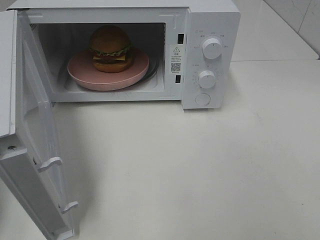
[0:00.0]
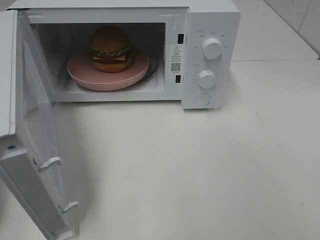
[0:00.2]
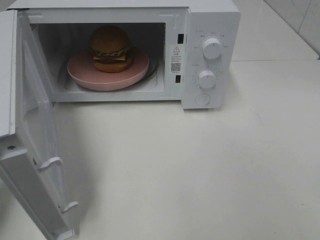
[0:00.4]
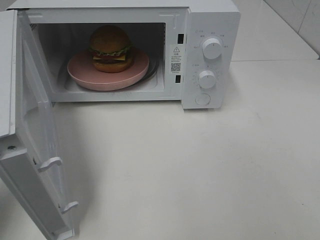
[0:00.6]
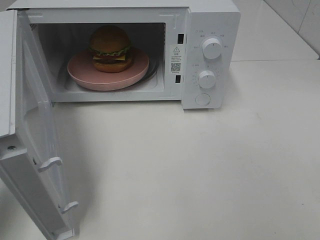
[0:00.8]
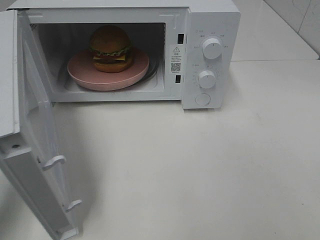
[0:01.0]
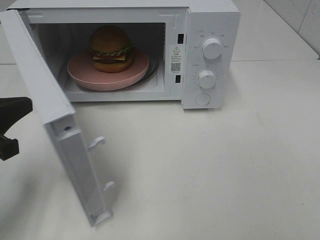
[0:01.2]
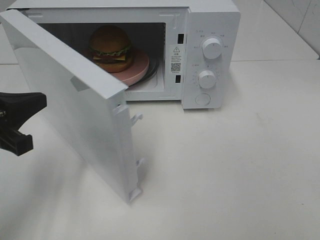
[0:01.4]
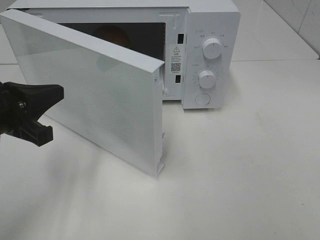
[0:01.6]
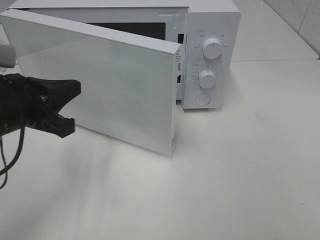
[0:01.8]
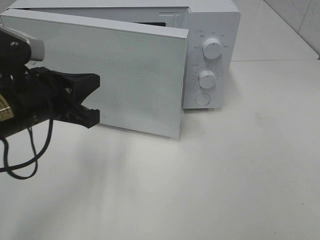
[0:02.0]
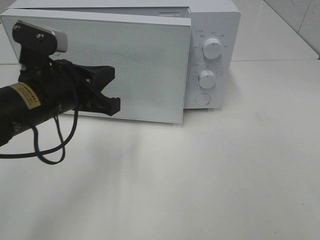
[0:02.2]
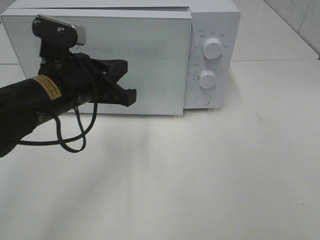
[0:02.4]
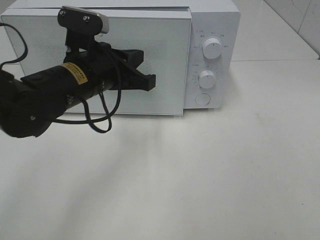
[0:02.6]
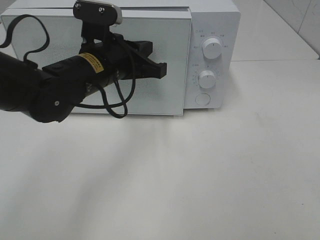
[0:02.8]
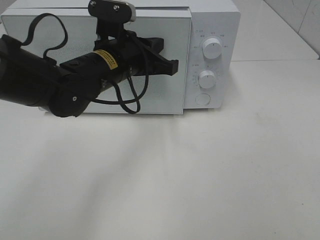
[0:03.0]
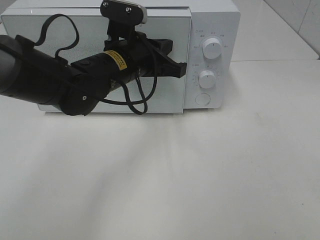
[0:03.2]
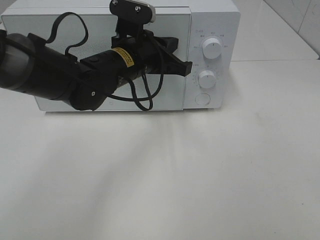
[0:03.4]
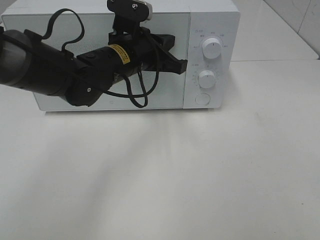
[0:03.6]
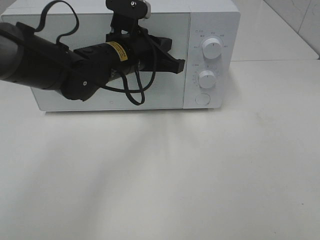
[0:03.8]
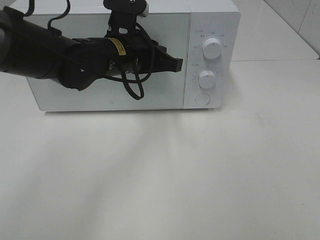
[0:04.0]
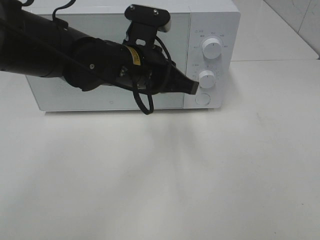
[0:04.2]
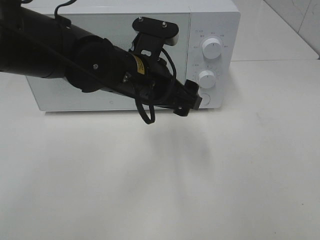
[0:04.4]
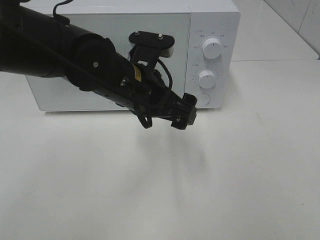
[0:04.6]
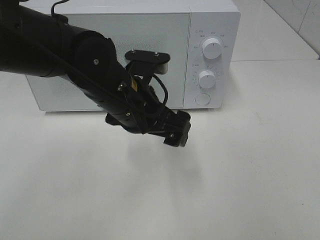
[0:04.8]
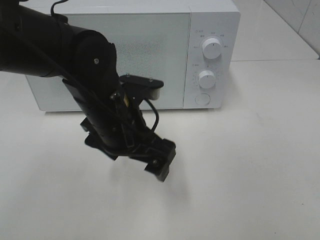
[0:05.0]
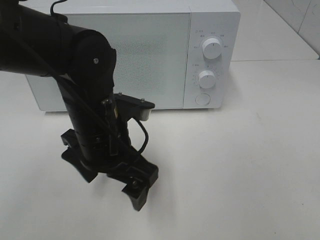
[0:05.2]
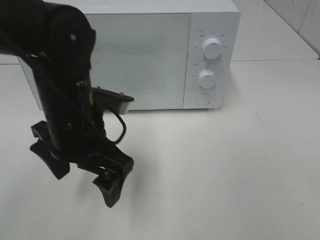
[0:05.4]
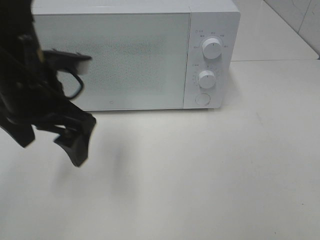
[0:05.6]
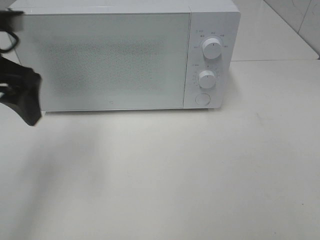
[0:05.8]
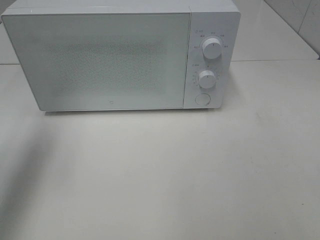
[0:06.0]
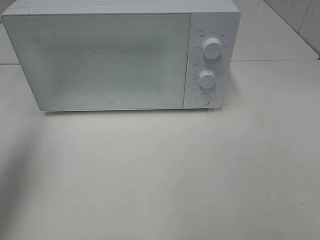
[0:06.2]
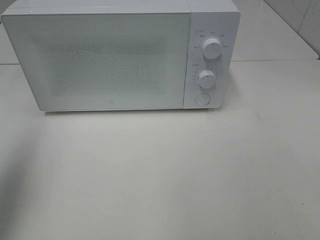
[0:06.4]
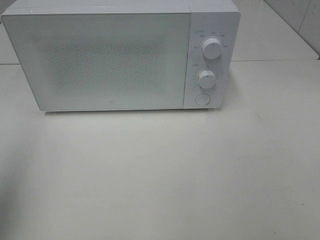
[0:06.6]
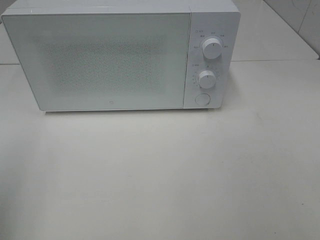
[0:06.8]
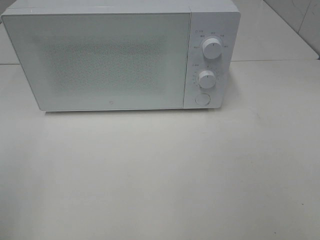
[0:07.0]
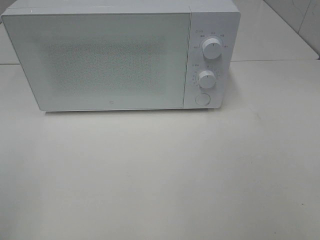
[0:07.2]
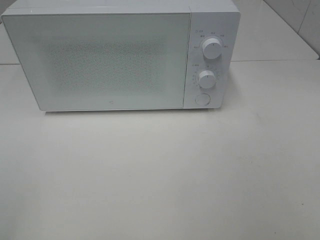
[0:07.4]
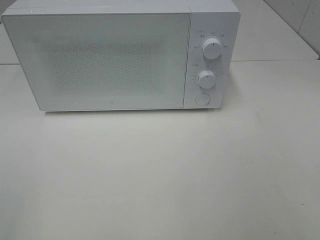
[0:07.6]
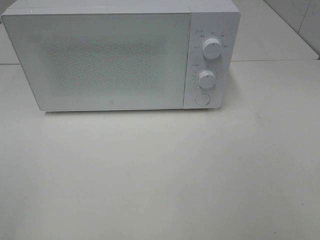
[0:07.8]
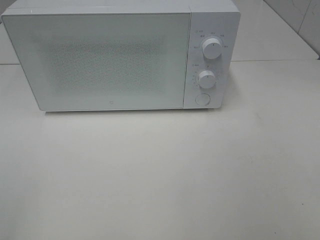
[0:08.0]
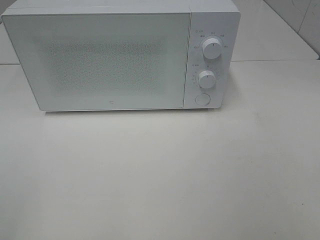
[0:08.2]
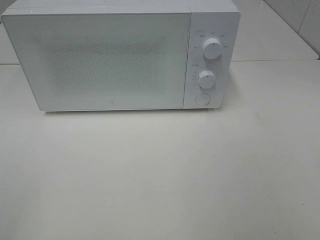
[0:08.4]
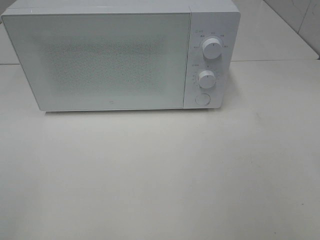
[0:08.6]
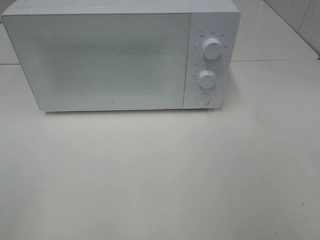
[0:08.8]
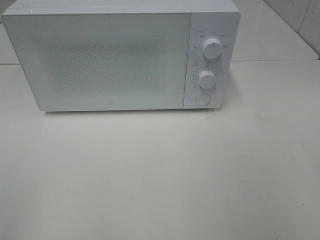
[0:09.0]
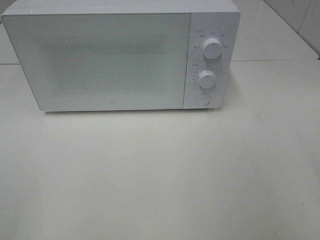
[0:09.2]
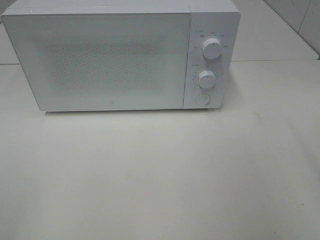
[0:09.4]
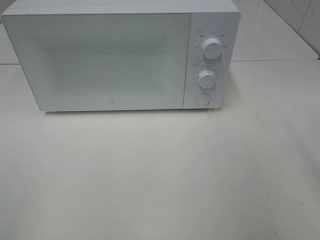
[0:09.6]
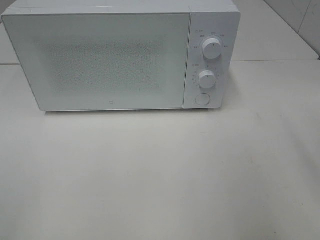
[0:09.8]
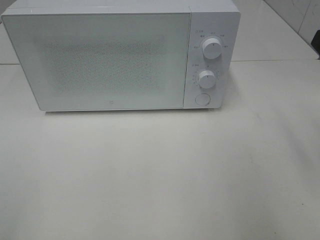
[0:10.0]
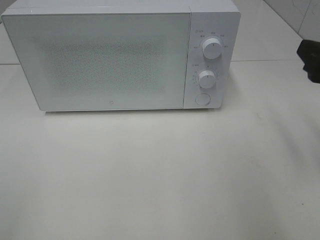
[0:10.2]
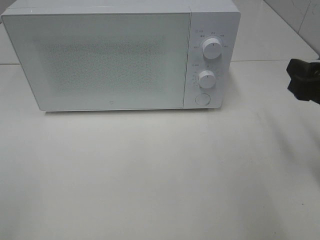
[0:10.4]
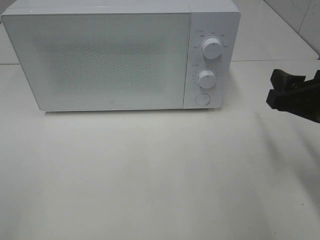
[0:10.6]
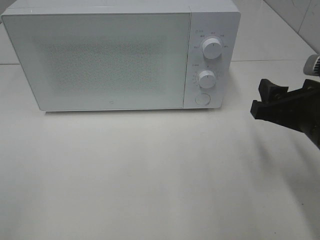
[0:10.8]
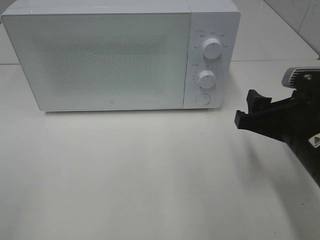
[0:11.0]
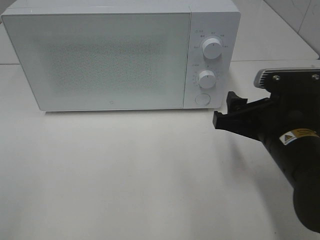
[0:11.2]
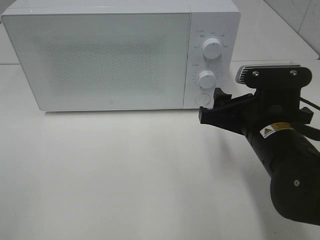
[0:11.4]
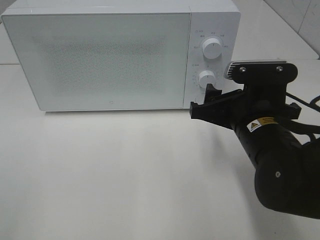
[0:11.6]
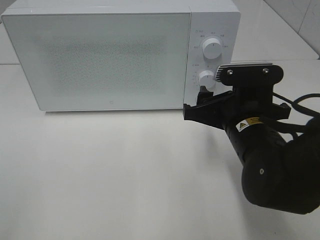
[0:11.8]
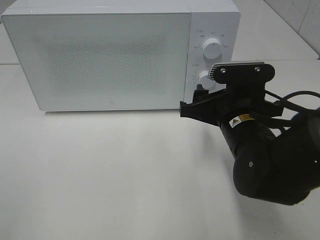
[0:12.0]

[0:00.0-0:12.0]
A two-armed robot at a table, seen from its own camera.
Task of the whole recording: Heat the burger.
Step, 0:00.0 to 0:04.0: Left hand: close the microwave door.
0:00.0 to 0:01.6: The left gripper is displaced to the right and forward by approximately 15 cm.
0:01.6 to 0:03.0: The left gripper moves to the right and forward, some 20 cm.
0:03.0 to 0:04.4: The left gripper changes place by roughly 5 cm, and opens its fingers.
0:04.4 to 0:06.0: The left gripper is displaced to the left and upward by approximately 30 cm.
0:06.0 to 0:07.6: The left gripper is displaced backward by approximately 25 cm.
0:09.0 to 0:10.4: The right gripper heads forward and downward, covering some 15 cm.
0:10.4 to 0:12.0: The right gripper moves to the left and downward, approximately 15 cm.

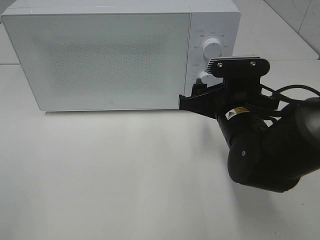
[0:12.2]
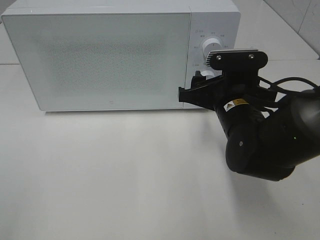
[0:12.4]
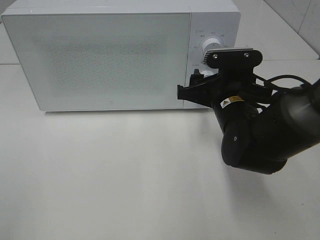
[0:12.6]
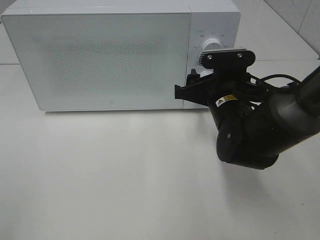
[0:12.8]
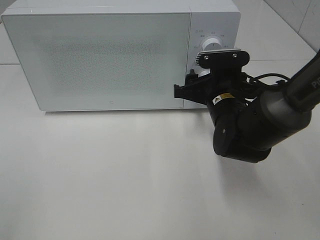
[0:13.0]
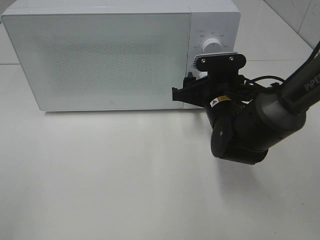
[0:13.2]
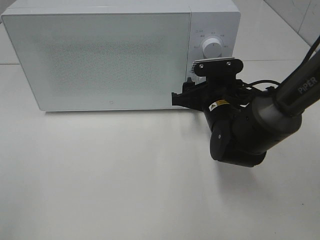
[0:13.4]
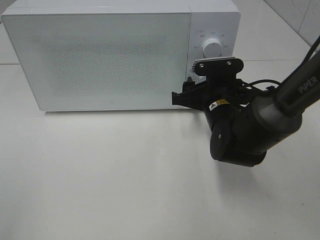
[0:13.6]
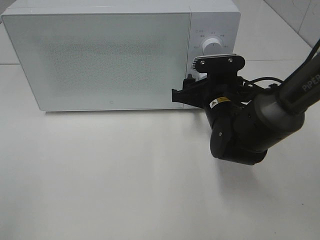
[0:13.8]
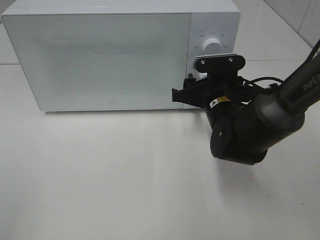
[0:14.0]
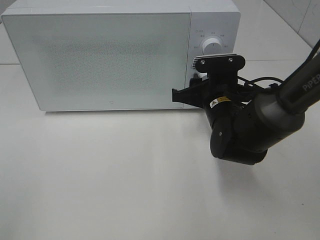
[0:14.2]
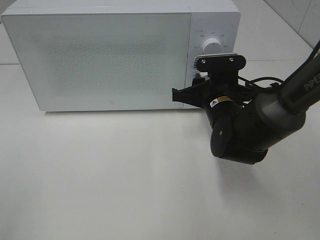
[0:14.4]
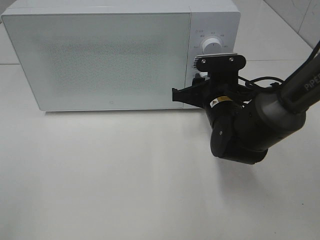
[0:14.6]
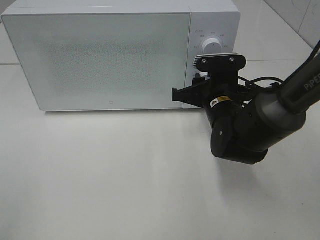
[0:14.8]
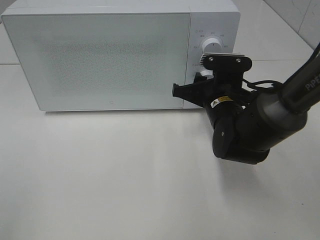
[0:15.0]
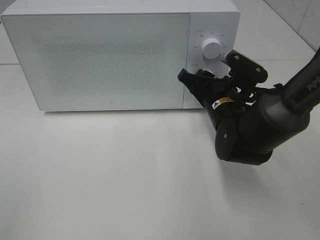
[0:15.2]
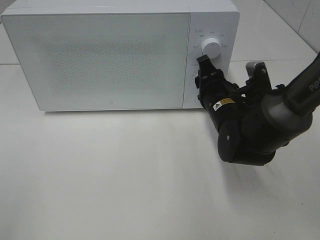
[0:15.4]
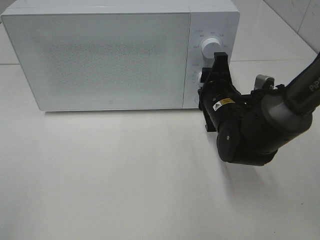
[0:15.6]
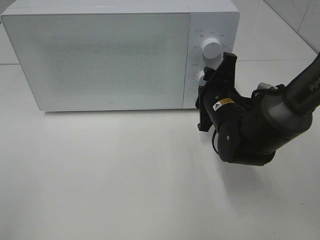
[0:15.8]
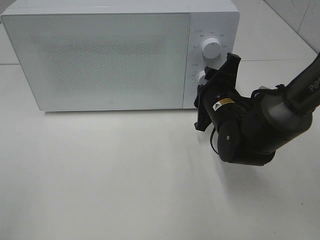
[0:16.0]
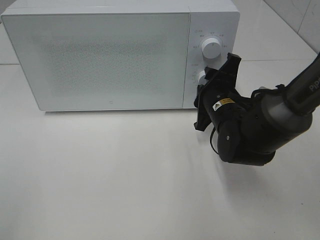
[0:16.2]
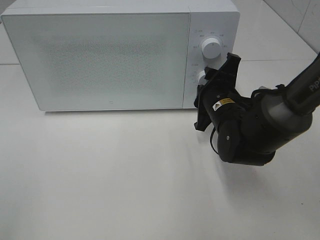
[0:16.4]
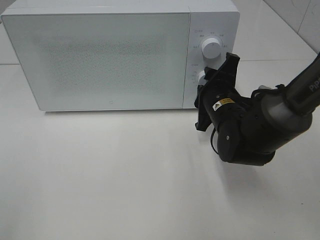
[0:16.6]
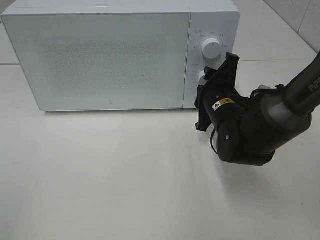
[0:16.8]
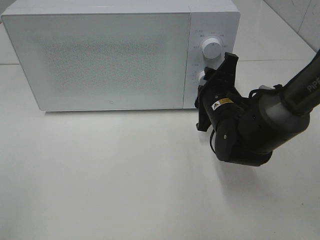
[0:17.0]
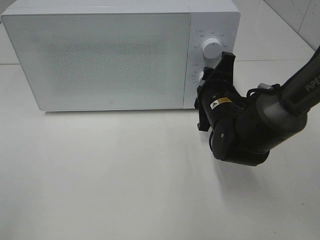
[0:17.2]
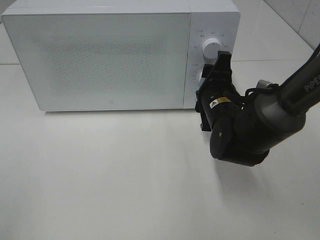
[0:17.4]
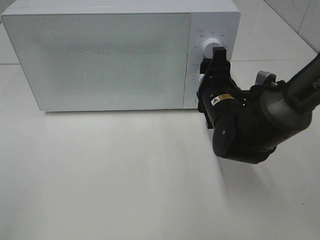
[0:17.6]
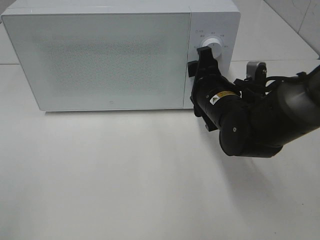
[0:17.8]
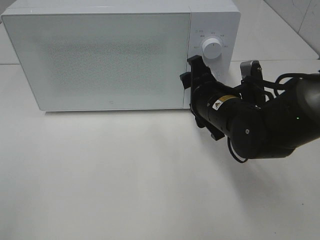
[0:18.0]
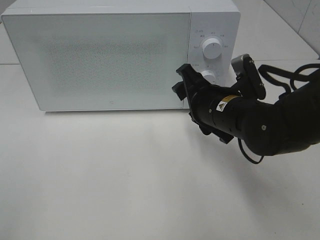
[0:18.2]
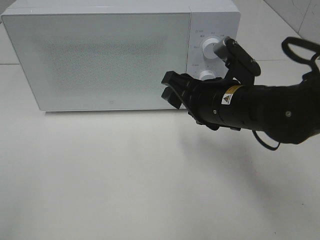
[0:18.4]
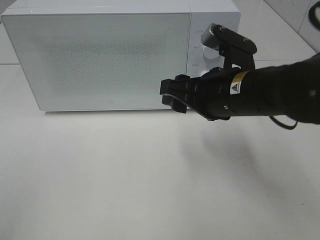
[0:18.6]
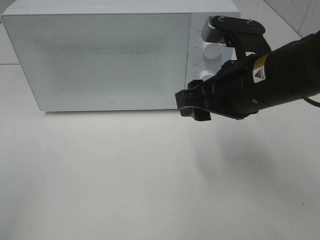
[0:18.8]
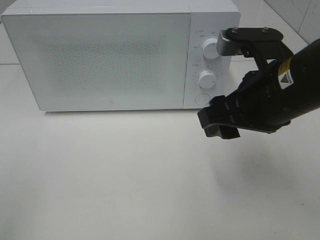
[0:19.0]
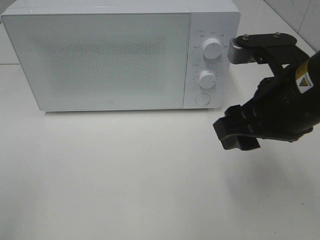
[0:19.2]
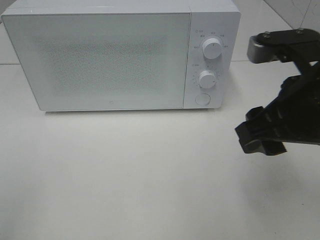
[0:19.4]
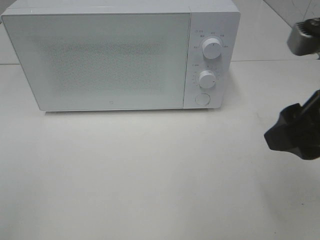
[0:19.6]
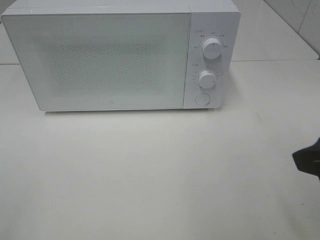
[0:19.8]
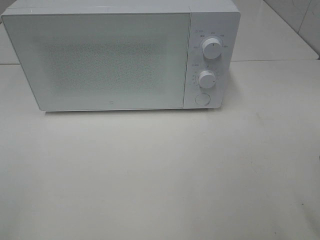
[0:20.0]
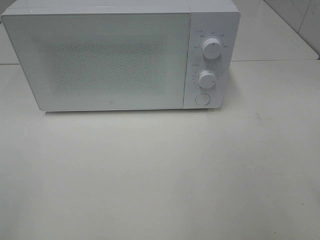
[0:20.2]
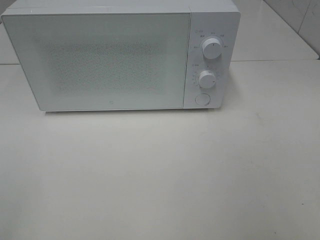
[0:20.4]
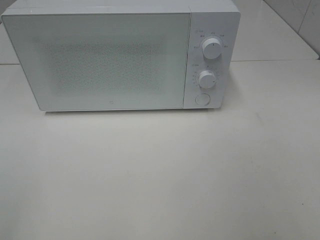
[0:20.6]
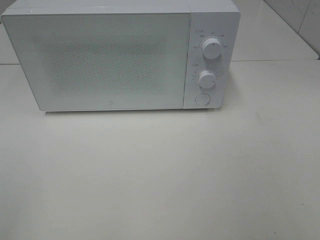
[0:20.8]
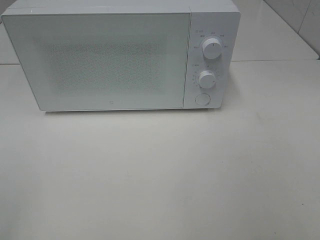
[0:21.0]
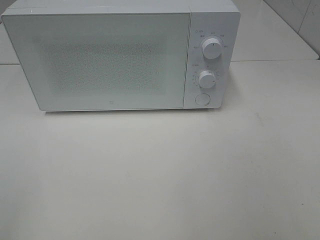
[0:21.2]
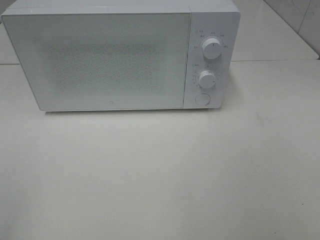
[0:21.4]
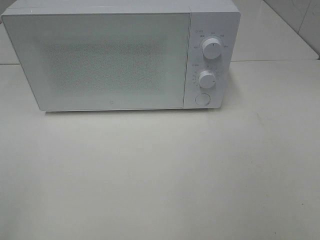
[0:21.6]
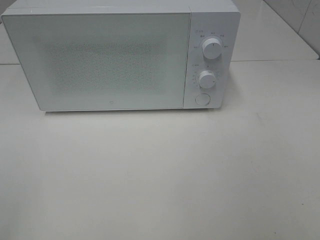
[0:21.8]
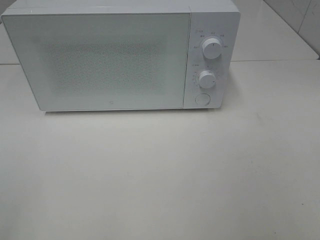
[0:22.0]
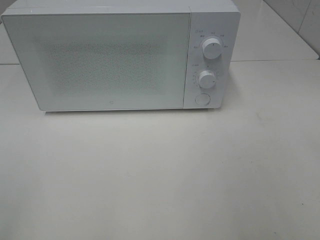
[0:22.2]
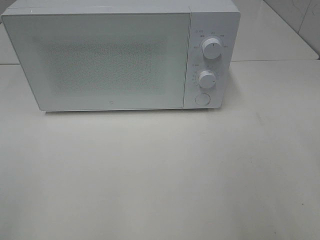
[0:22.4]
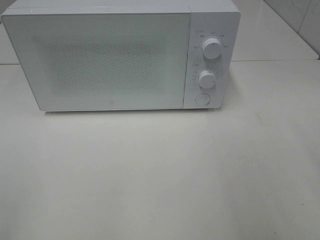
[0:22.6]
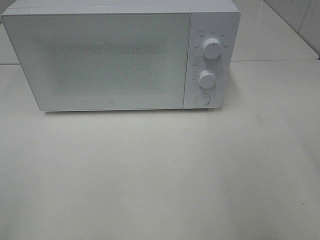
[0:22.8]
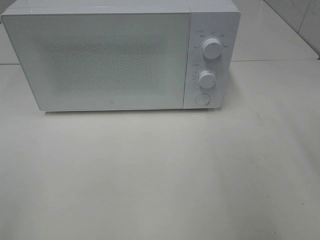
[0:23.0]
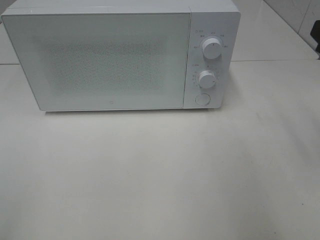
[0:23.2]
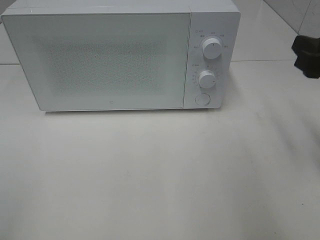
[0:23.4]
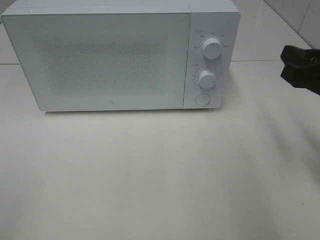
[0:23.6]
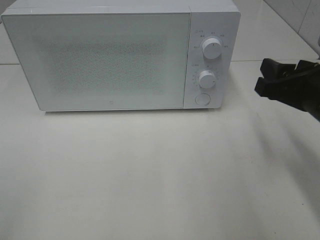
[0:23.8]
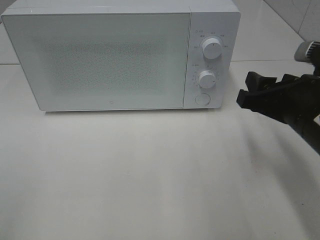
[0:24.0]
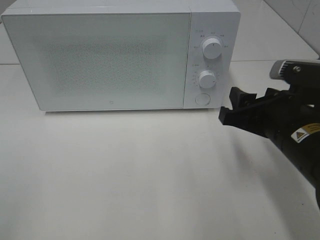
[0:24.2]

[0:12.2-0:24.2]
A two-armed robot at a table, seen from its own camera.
Task of the whole recording: Heat the burger.
Step, 0:12.2 to 0:17.4: Right hand: twist timer button.
0:12.2 to 0:13.8: The right gripper travels forward by roughly 5 cm.
0:13.8 to 0:15.2: The right gripper closes.
0:16.6 to 0:18.2: The right gripper changes place by about 5 cm.
0:18.2 to 0:19.8: The right gripper is displaced backward, upward and to the right by roughly 25 cm.
0:19.8 to 0:21.2: The right gripper travels backward and to the right by about 15 cm.
0:22.6 to 0:24.2: The right gripper shifts approximately 20 cm downward, to the left and forward.
